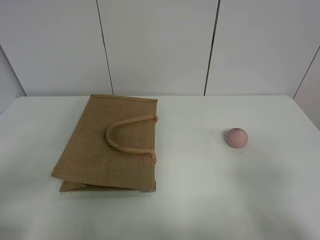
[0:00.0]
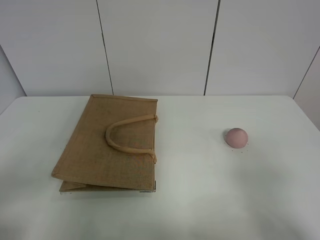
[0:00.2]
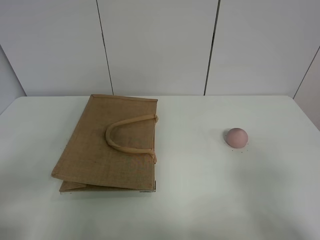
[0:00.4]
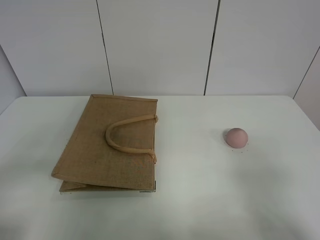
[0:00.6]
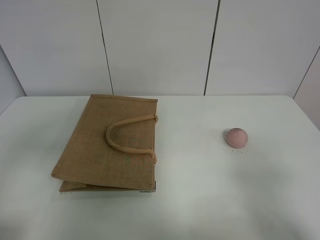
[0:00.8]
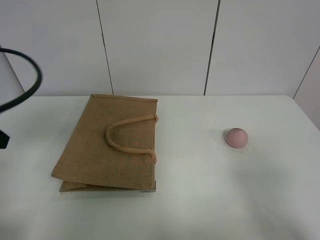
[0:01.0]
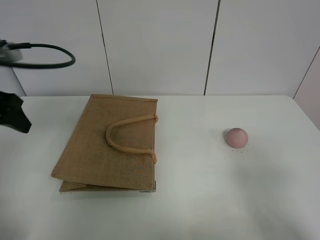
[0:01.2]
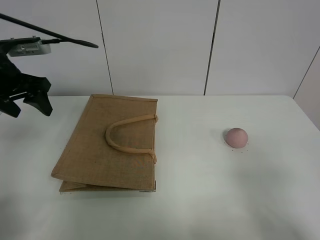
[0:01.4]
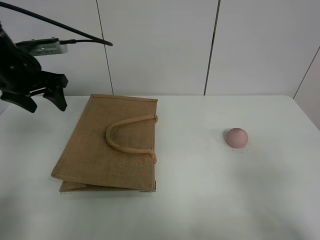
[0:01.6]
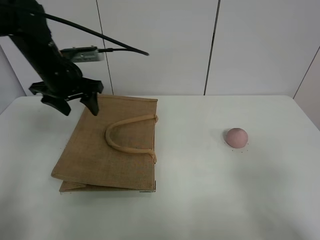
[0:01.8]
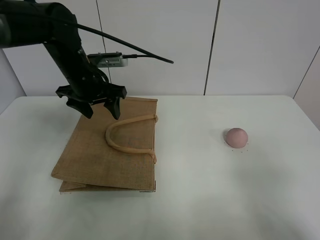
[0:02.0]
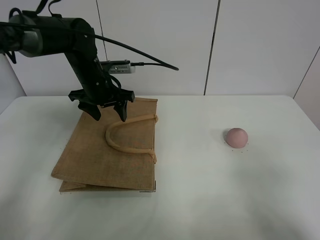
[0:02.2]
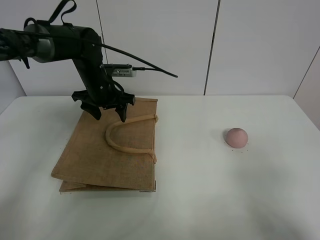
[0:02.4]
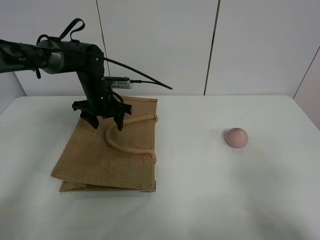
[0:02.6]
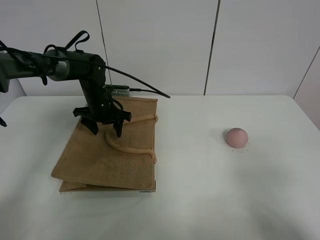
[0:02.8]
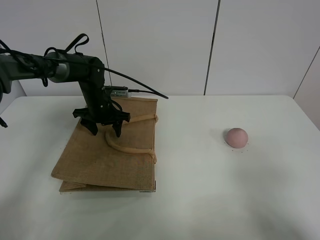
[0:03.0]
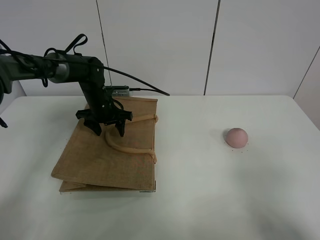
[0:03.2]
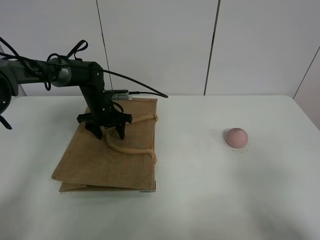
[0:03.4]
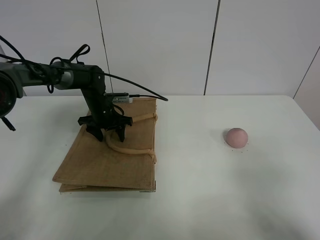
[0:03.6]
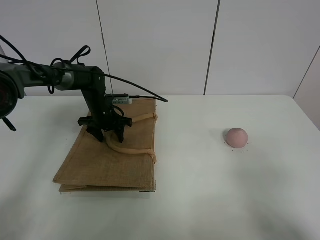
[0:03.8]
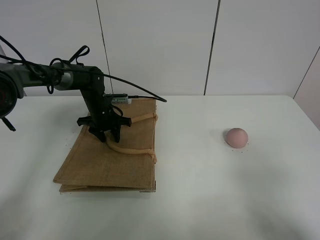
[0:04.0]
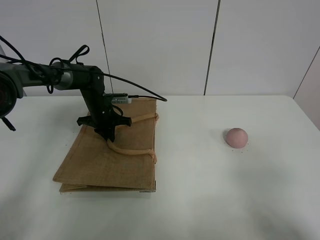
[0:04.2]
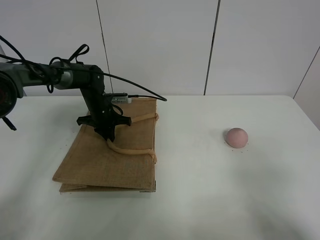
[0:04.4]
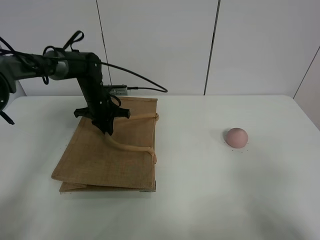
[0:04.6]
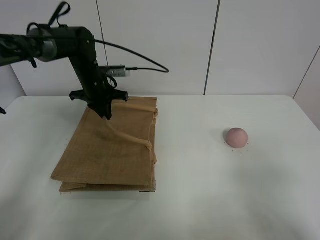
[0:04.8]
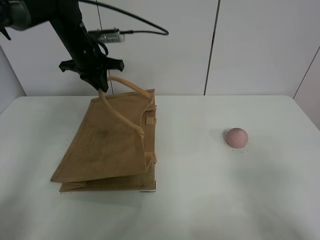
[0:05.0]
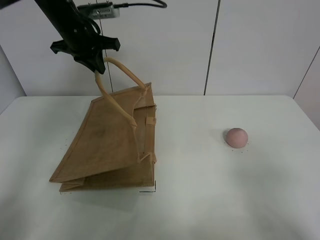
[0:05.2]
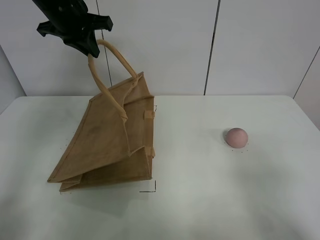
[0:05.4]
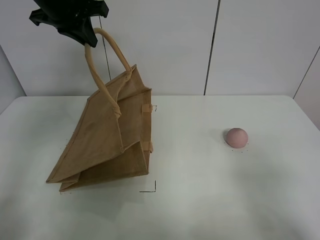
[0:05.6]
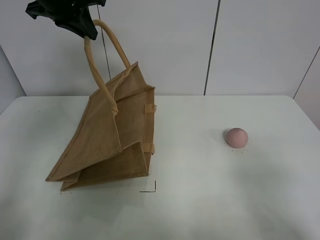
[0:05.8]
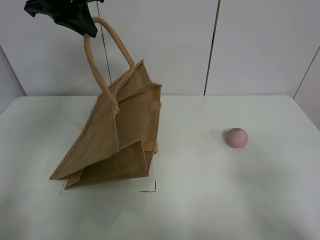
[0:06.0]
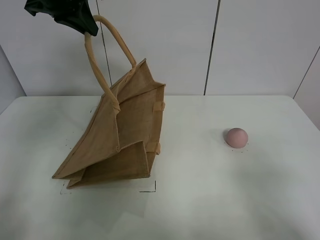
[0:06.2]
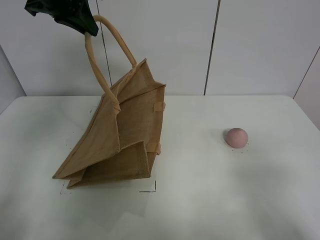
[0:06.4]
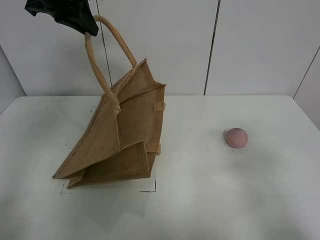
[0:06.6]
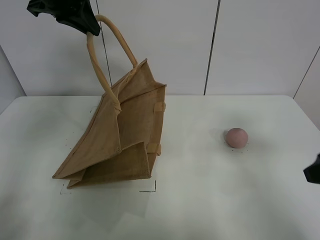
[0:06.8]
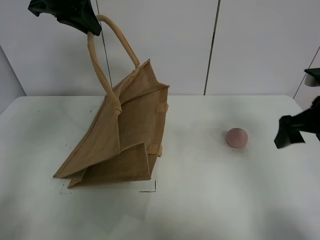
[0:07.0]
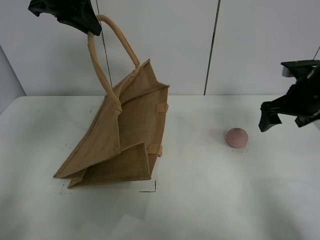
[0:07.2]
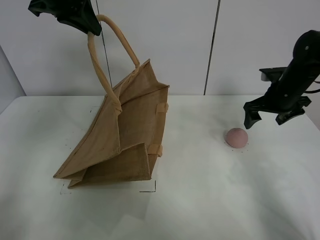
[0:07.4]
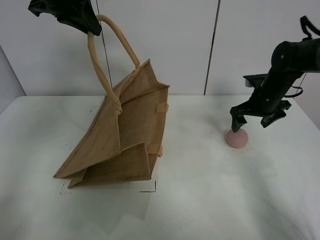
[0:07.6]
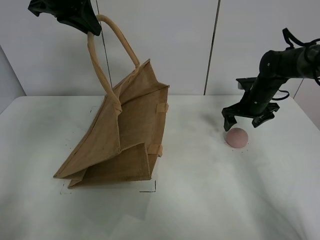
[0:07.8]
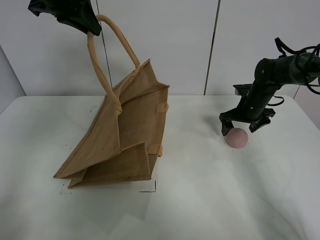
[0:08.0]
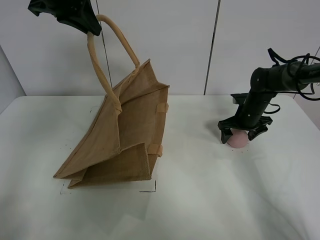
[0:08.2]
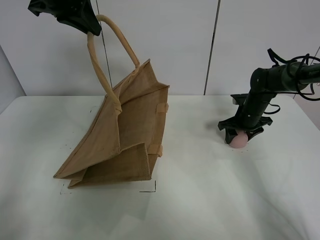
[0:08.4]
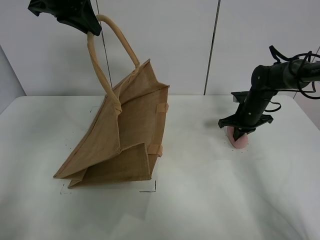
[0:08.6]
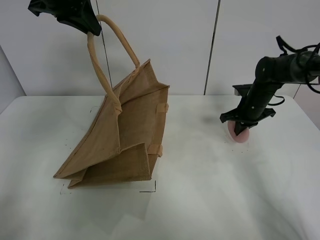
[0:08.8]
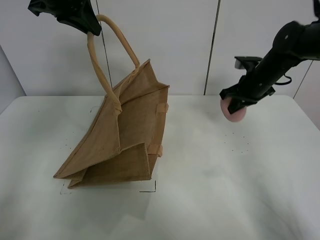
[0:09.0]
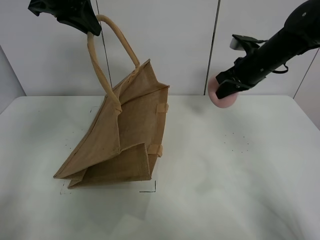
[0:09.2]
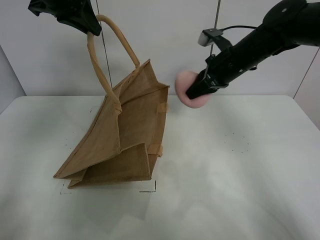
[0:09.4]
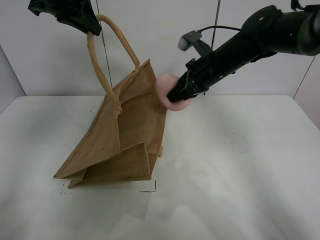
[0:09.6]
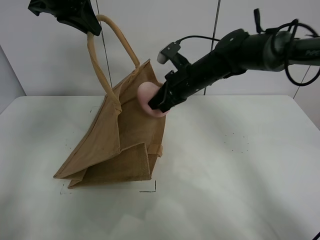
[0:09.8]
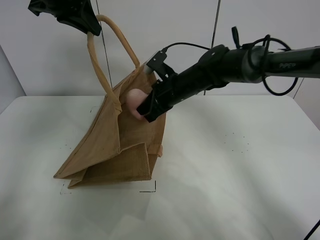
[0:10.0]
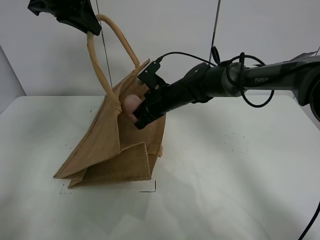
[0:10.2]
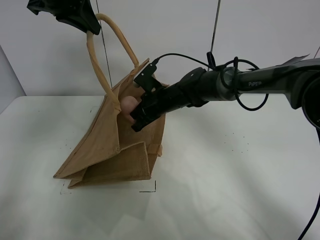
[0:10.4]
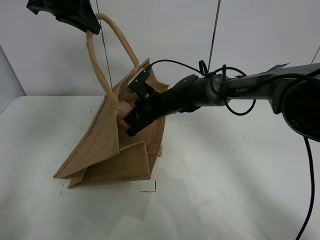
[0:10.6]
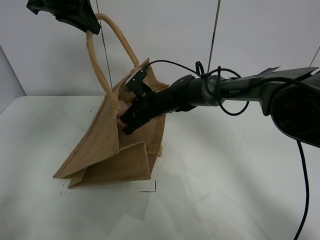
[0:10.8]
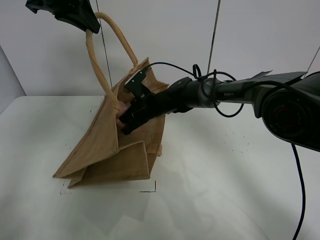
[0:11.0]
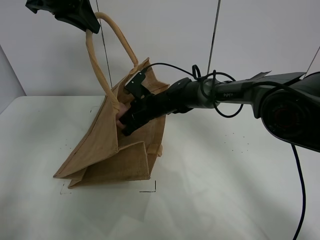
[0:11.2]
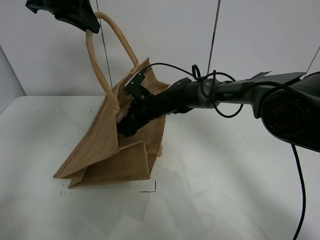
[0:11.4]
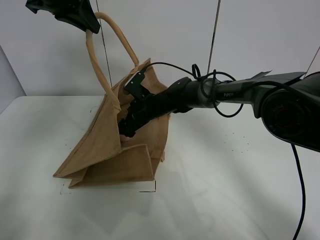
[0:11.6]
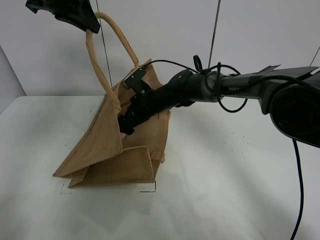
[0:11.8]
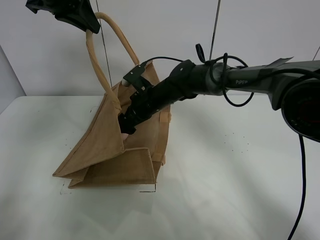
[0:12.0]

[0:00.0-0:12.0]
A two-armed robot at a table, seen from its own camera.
Task of the whole recording: open the brown linen bag and put the peach in the bag.
Step, 0:00.0 to 0:05.6: Lift the handbag with left gripper.
Step, 0:05.8 to 0:08.6: Grasp the peach with right gripper.
0:00.0 to 0:01.6: The left gripper moves forward, about 35 cm.
0:01.6 to 0:03.0: The left gripper moves downward, to the right and forward, some 20 cm.
0:03.0 to 0:04.4: The left gripper closes its fingers.
0:04.4 to 0:06.0: The left gripper is displaced upward by some 30 cm.
0:06.0 to 0:07.6: The right gripper travels forward by about 40 cm.
0:07.6 to 0:09.0: The right gripper moves upward, approximately 5 cm, and closes up.
0:09.0 to 0:10.4: The right gripper goes about 20 cm to the left.
0:10.4 to 0:12.0: The right gripper opens its fingers.

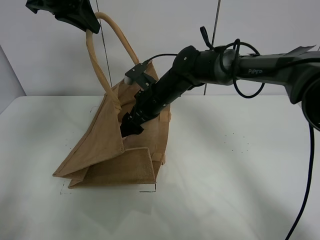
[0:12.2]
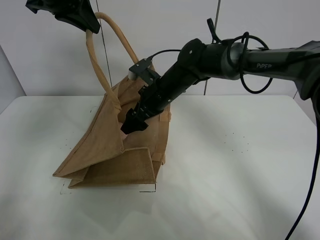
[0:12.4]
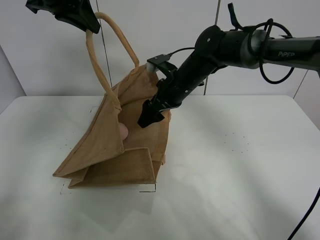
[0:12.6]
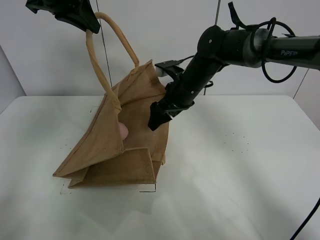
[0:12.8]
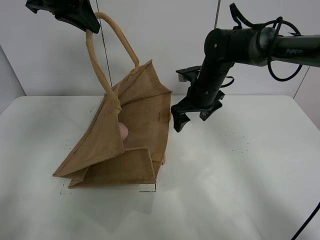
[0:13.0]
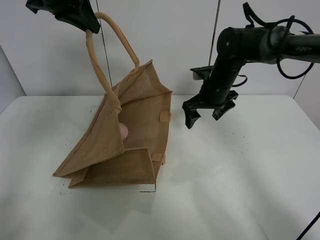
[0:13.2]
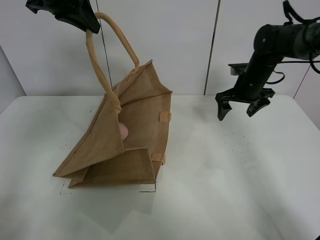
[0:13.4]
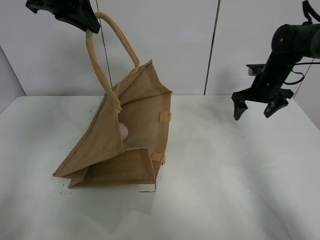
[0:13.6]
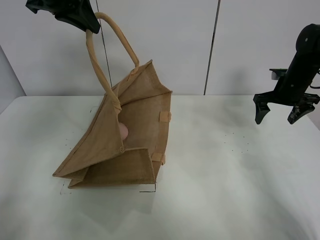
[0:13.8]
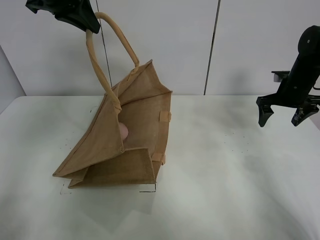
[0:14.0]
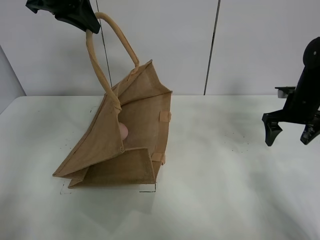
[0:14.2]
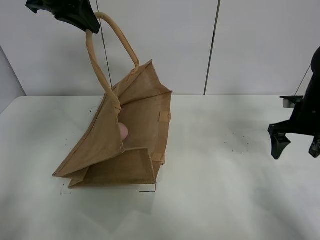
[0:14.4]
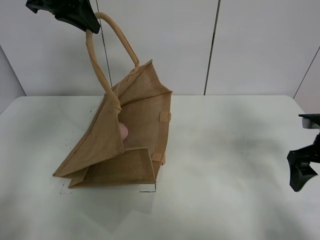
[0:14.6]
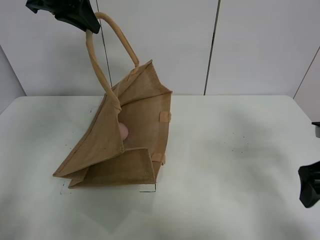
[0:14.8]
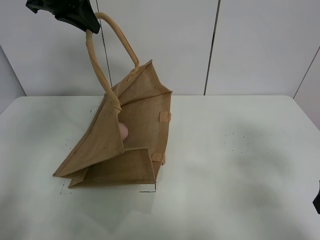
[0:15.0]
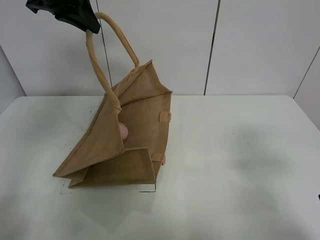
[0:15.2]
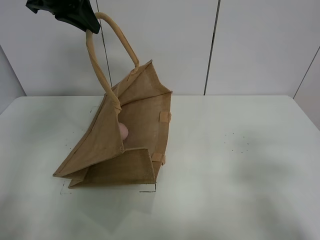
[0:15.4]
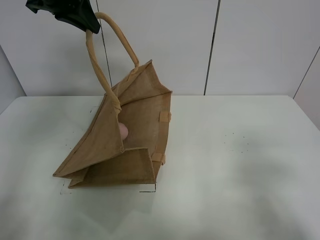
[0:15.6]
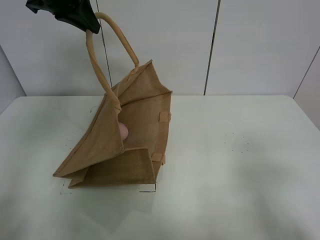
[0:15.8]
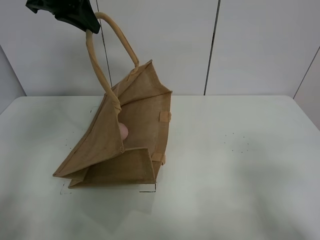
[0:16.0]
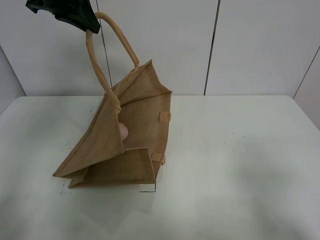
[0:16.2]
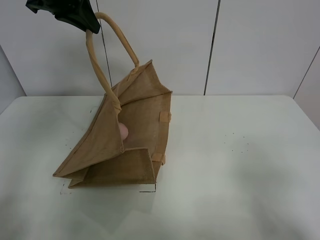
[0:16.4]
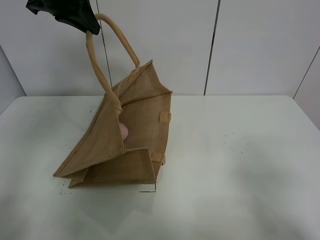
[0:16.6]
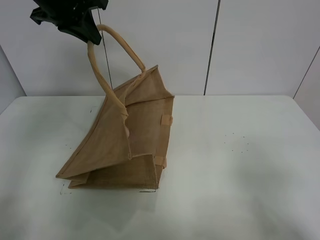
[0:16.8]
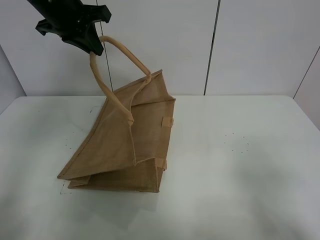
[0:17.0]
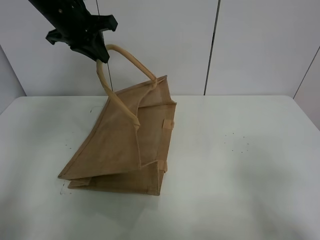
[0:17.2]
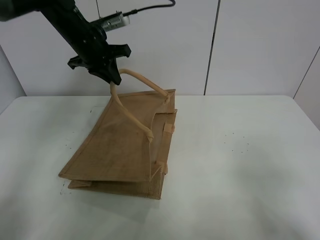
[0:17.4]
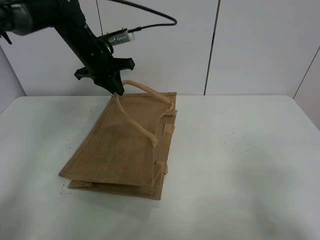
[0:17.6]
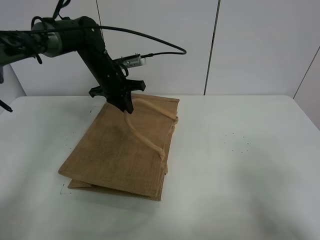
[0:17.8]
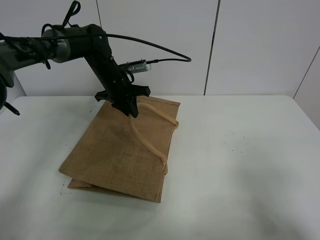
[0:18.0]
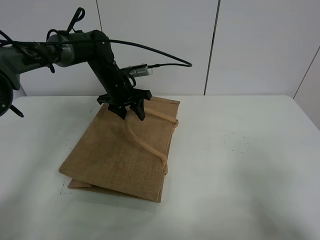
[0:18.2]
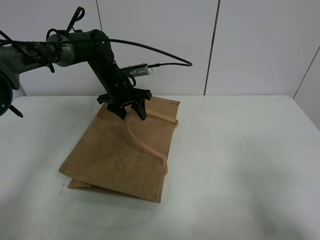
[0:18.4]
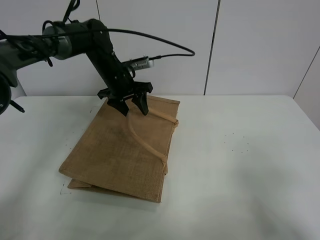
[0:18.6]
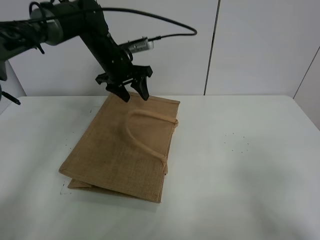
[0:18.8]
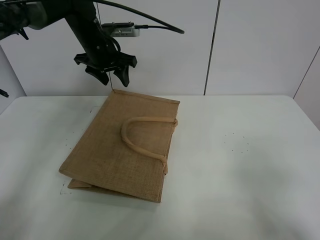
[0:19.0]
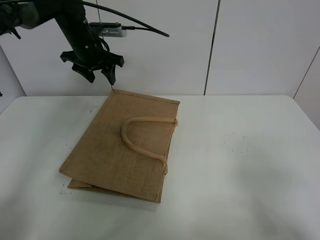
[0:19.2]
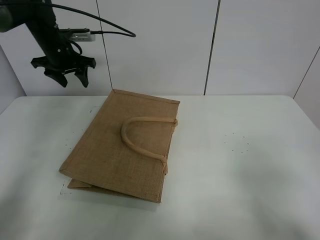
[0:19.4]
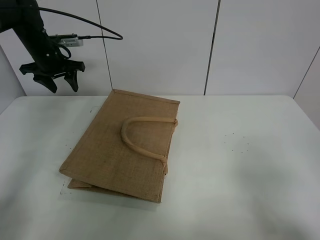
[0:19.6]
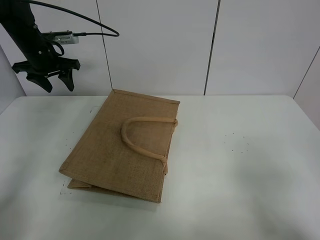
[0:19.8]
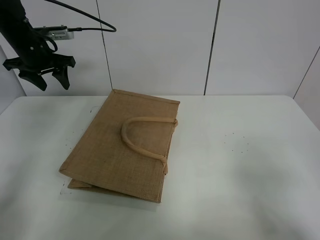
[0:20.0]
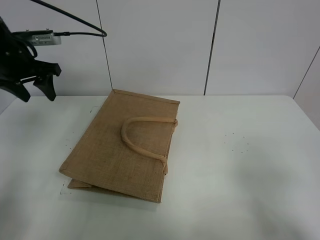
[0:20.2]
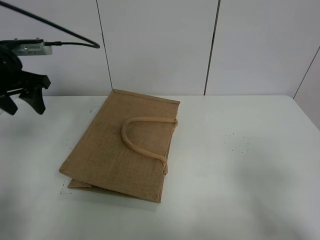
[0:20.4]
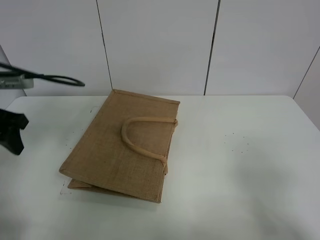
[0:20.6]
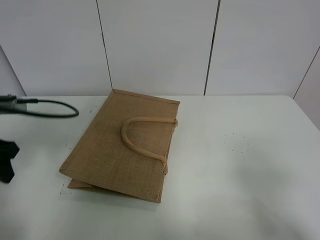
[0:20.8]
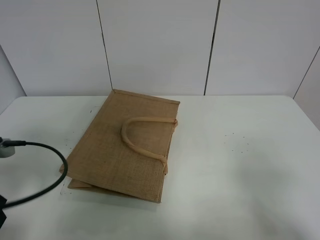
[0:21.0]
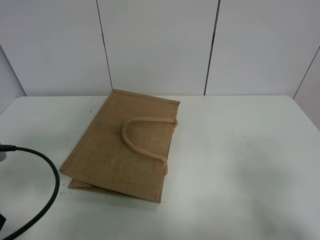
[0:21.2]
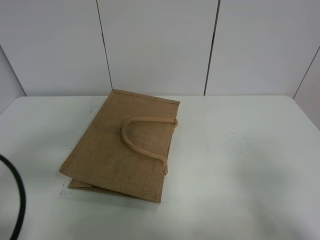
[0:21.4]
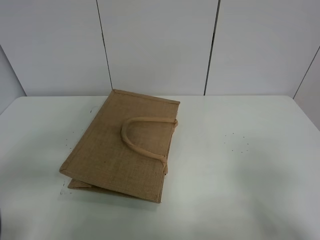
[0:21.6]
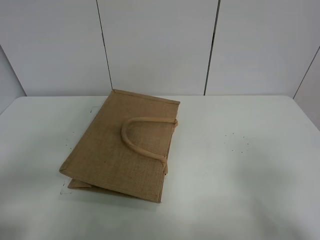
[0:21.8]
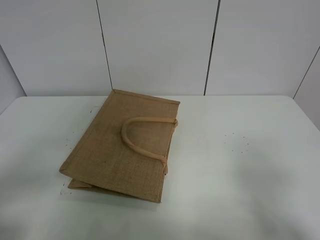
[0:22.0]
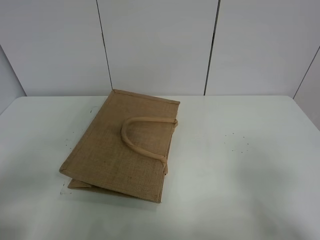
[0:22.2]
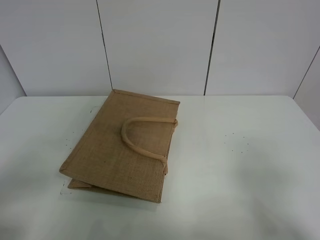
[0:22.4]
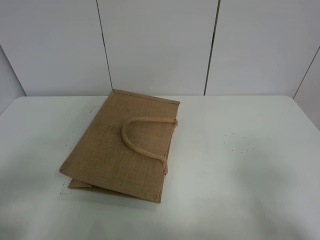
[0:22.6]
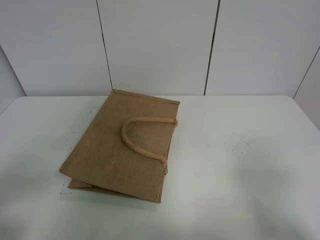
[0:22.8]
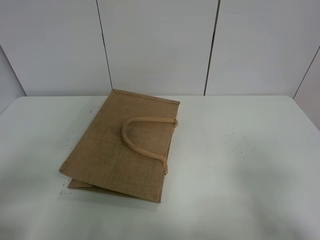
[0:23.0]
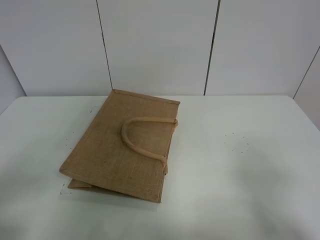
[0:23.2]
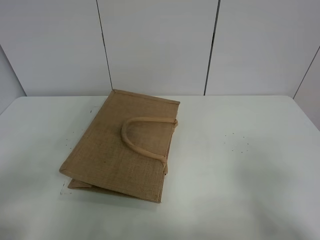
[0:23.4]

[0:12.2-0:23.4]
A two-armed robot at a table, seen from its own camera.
Task of the whole recording: open the brown linen bag and put the peach in the bag.
Step, 0:13.0 to 0:19.0: Put down the handbag with left grippe.
0:12.2 to 0:13.8: The right gripper shifts approximately 30 cm to the right.
0:13.8 to 0:15.4: The right gripper heads backward, covering some 35 cm.
0:15.4 to 0:17.0: The right gripper travels backward by approximately 5 cm.
0:17.0 to 0:18.6: The left gripper moves downward and forward, approximately 20 cm, and opens up.
0:18.6 to 0:20.2: The left gripper shifts about 20 cm to the left, backward and upward.
0:20.2 to 0:21.8: The left gripper is displaced backward by approximately 35 cm.
